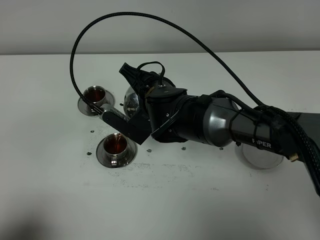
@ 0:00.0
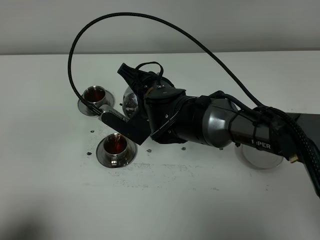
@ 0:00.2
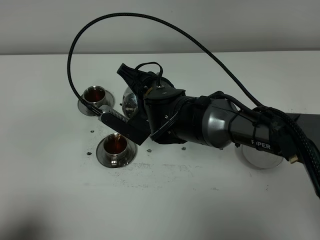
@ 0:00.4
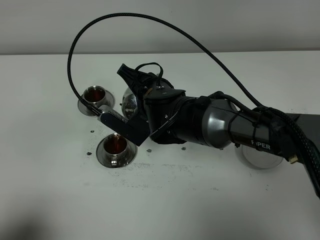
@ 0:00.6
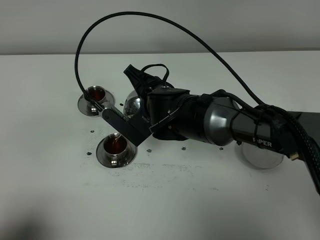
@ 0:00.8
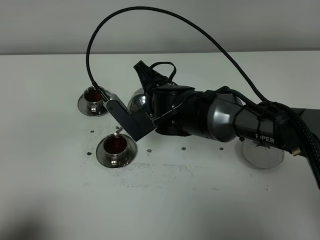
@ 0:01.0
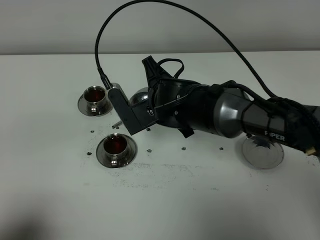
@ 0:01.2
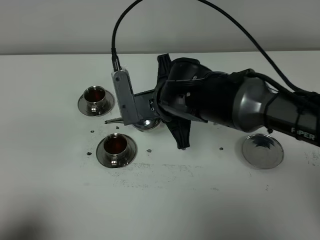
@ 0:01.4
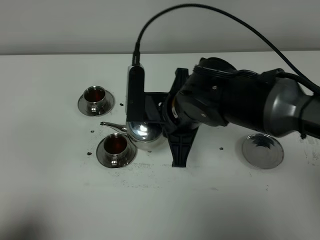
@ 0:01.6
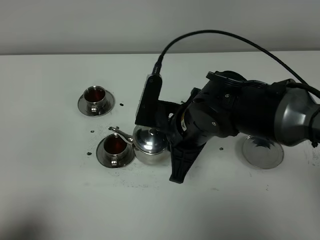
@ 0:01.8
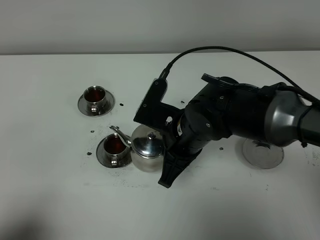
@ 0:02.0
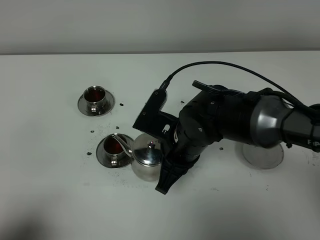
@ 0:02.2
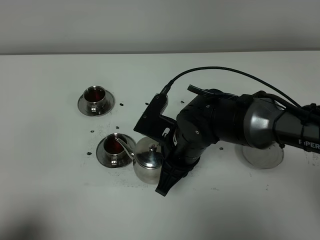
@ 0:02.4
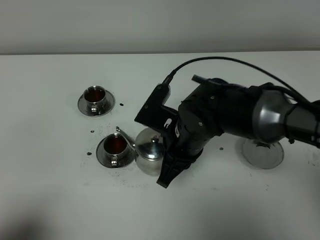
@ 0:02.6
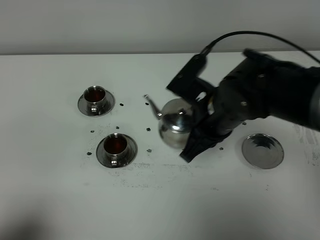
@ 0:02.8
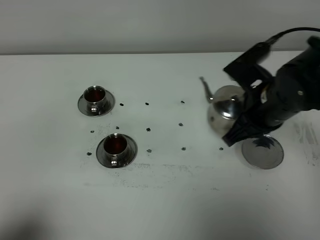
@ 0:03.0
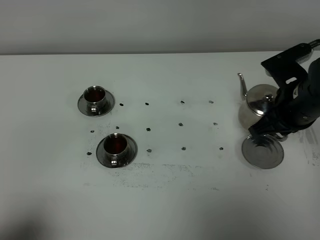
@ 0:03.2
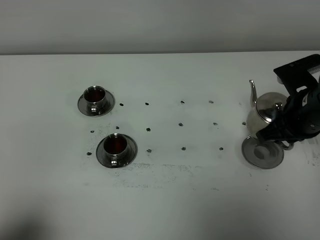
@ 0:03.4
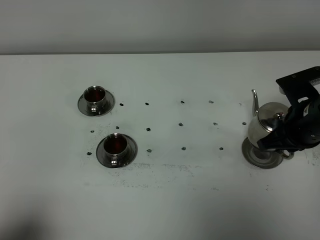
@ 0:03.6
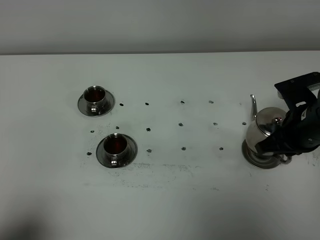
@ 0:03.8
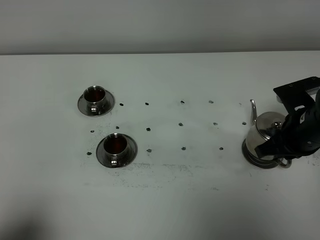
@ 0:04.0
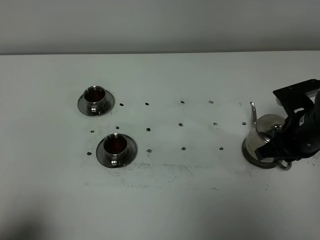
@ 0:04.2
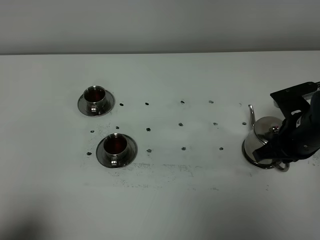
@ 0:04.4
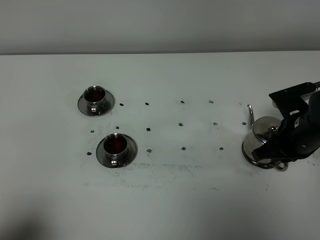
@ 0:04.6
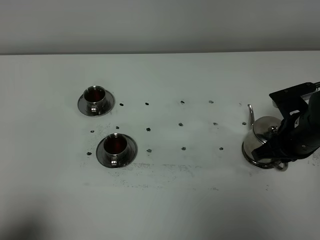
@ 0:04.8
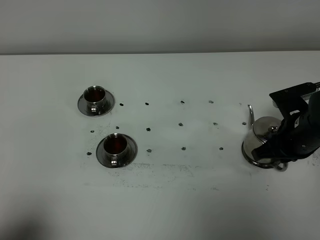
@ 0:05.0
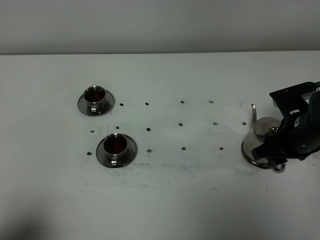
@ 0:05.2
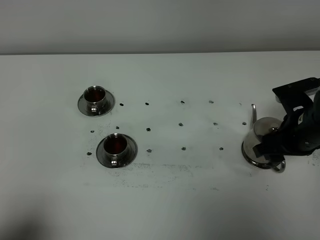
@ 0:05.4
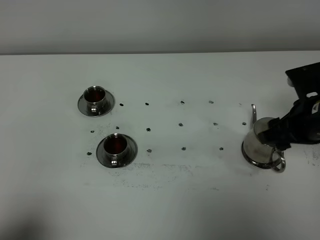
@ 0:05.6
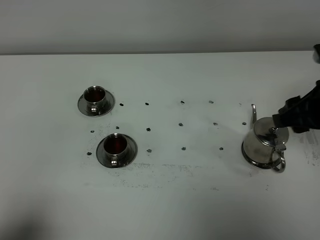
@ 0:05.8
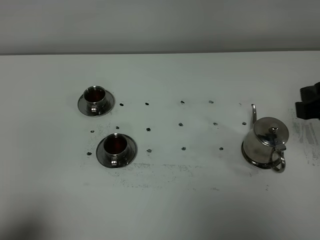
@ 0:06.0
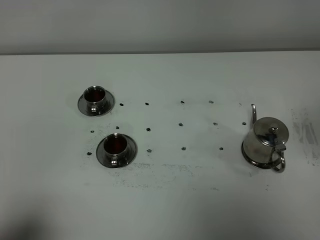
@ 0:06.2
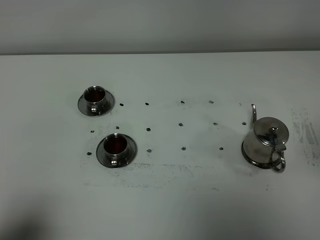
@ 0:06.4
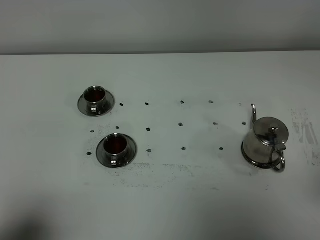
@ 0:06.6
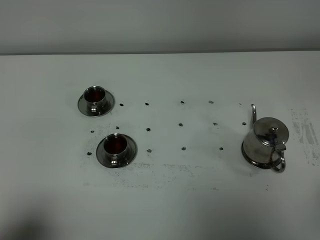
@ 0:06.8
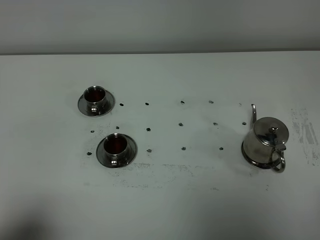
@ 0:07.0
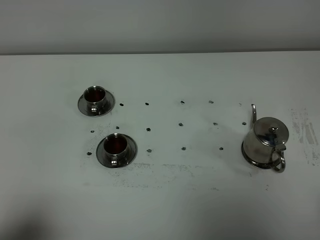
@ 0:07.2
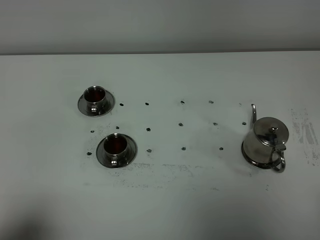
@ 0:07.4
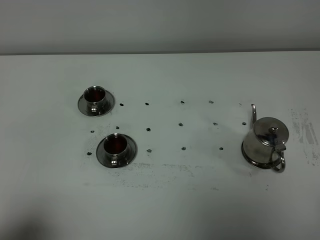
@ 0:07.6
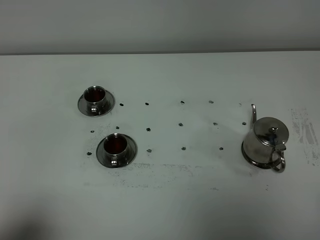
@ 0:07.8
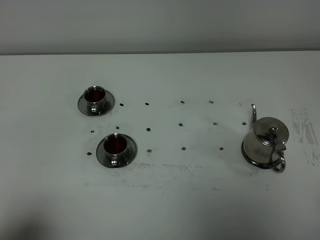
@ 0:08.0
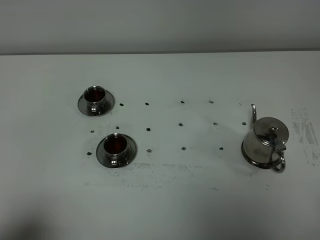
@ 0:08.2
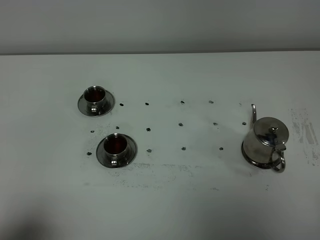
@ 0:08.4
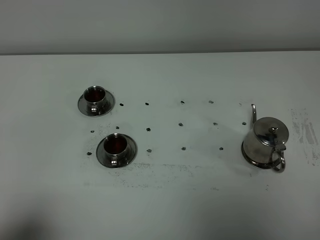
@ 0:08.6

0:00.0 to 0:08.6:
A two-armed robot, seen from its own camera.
Task of the whole recording: grasp the stainless steel teapot and pour the tea into the two stainless steel teacups one by one, put the stainless steel teapot back in its original place.
0:01.4 to 0:02.8: The right gripper shifts approximately 5 cm to the right.
0:02.8 to 0:04.4: The right gripper goes roughly 15 cm to the right and downward.
0:04.4 to 0:05.8: The right gripper shifts roughly 15 cm upward and backward, and opens.
0:05.8 to 0:07.2: The right gripper is displaced backward by roughly 25 cm, and closes its fingers.
